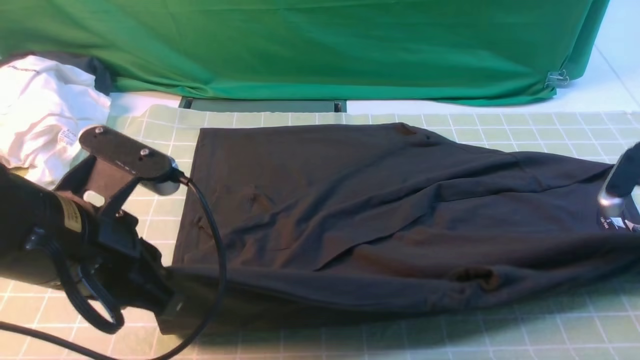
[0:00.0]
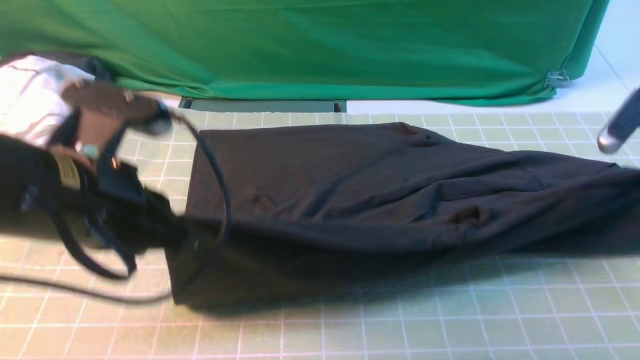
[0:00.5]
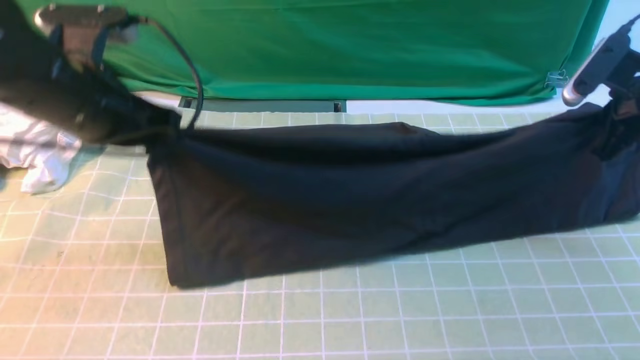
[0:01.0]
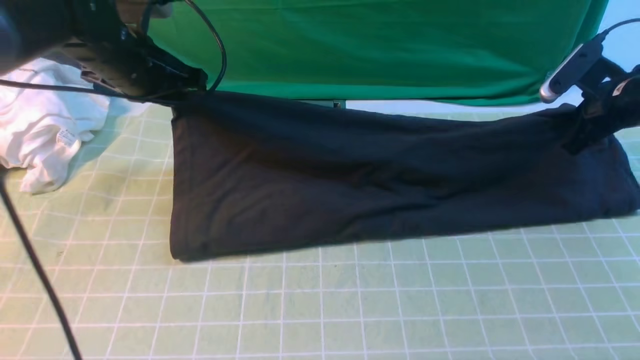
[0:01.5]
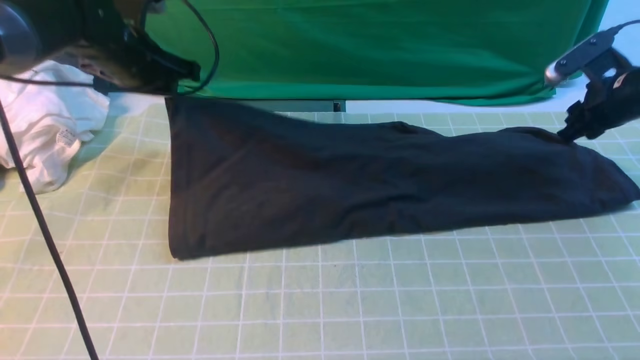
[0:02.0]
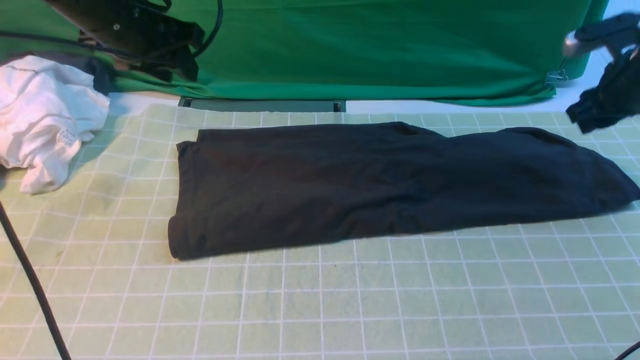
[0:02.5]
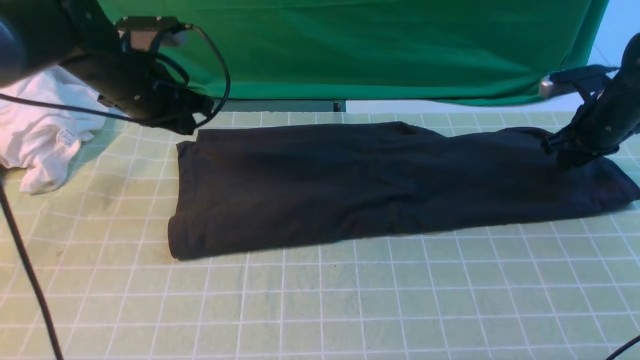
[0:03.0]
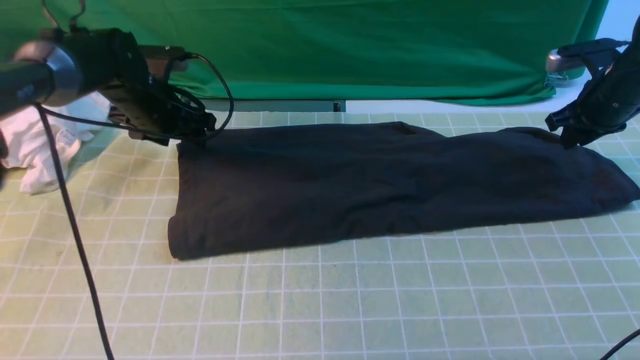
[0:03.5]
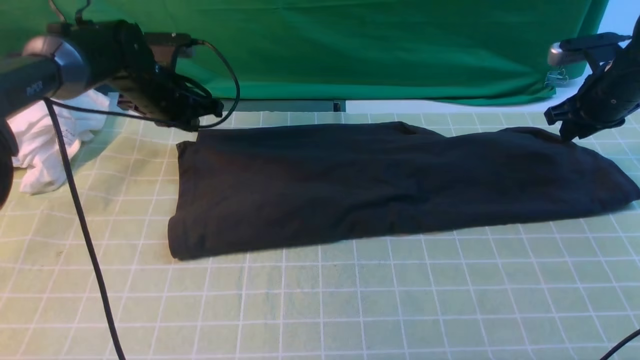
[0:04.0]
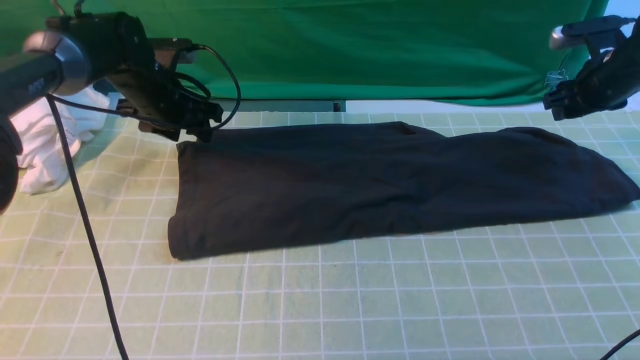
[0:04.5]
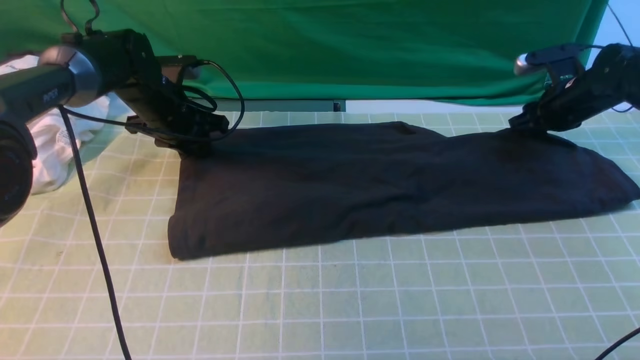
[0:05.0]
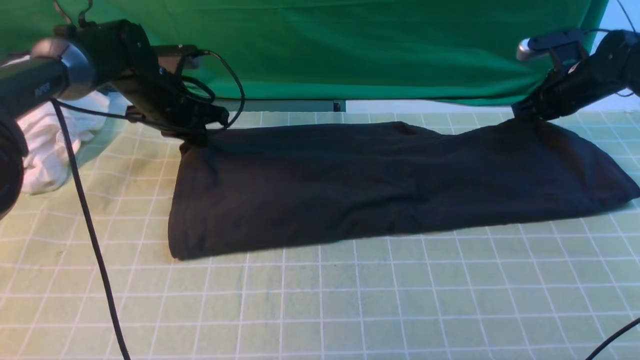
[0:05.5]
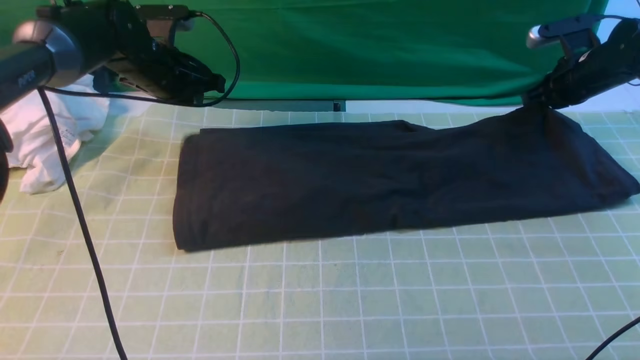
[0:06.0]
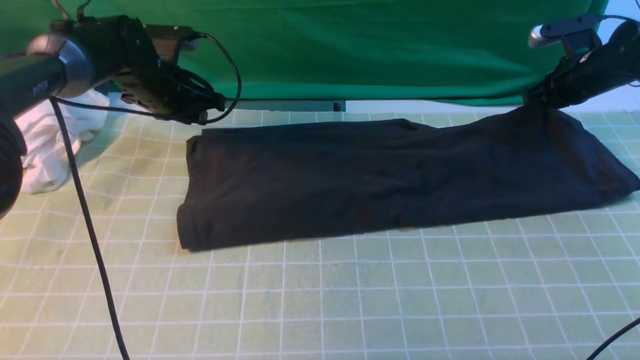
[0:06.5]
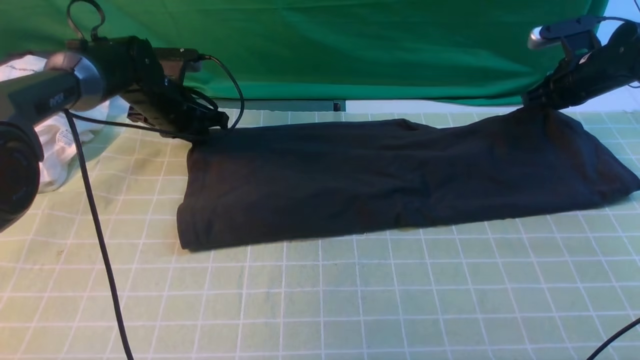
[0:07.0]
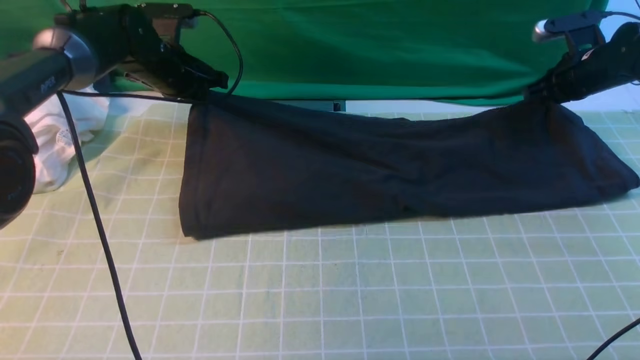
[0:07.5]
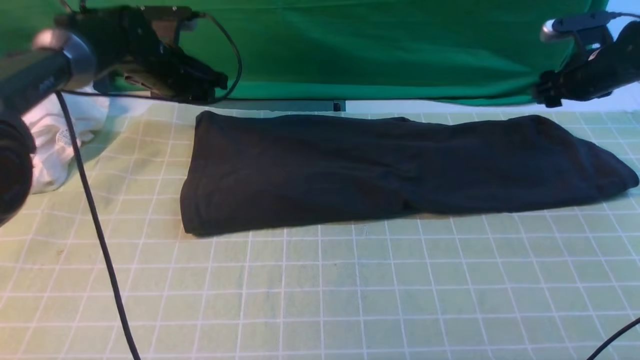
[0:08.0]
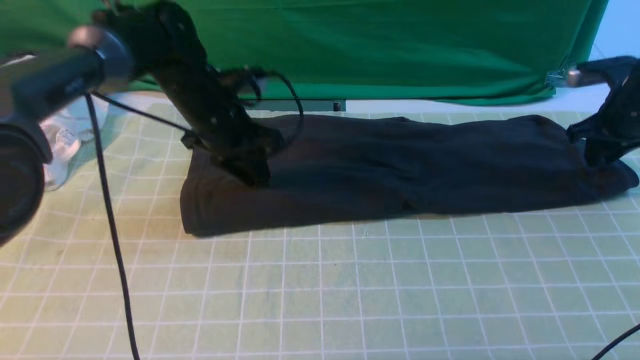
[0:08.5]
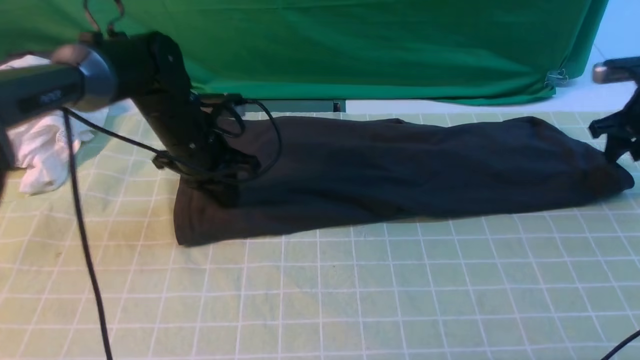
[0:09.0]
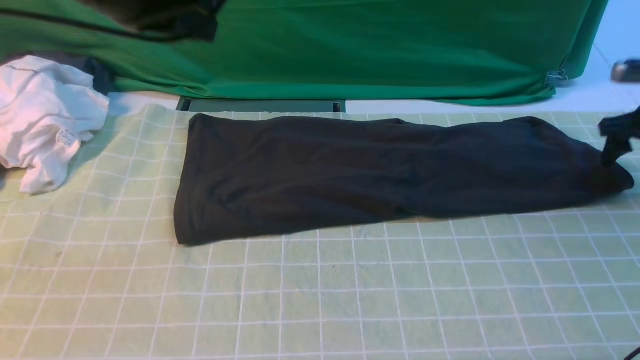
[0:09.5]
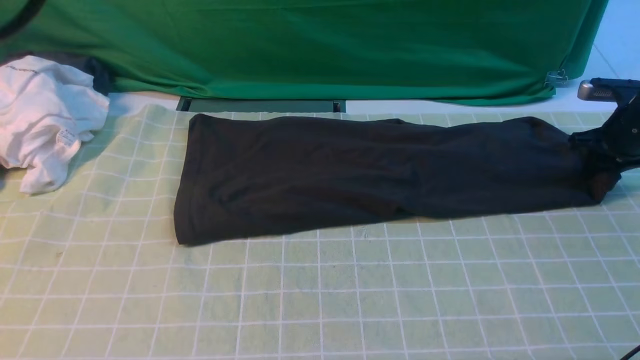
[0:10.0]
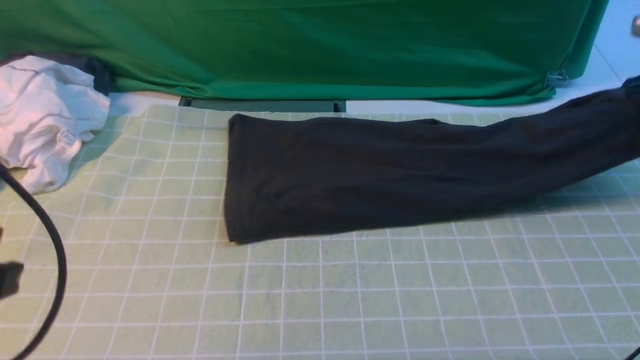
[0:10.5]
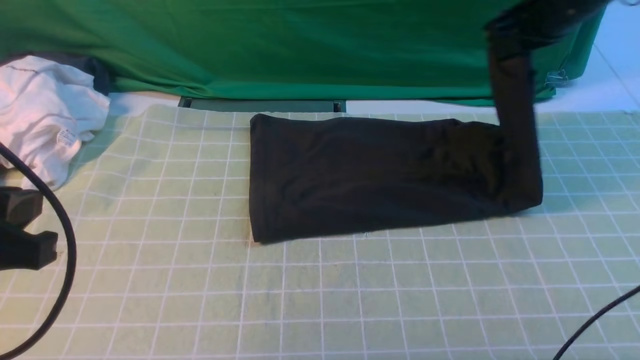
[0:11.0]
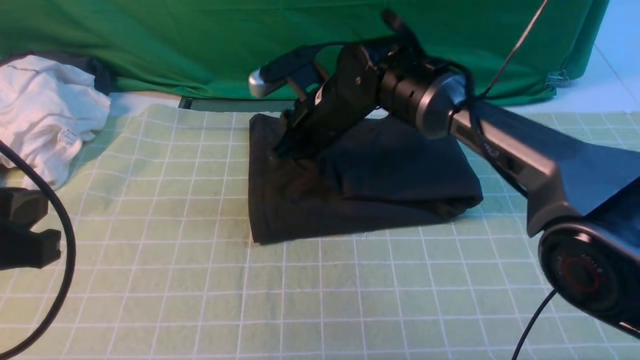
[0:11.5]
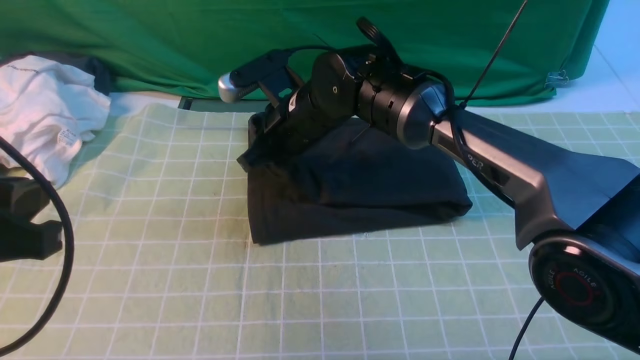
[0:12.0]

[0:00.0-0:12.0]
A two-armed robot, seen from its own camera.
Step, 0:00.0 to 0:07.5: use both arms to drag the lower edge of the fabric forward and fold it over the upper edge.
Step, 0:08.0 to 0:10.0: use the right arm to clamp the right edge of the fabric.
0:00.0 to 0:02.0: The right gripper is displaced forward by some 15 cm, and opens its fingers. The left gripper heads forward, covering about 25 cm, and opens.
0:02.0 to 0:04.0: The left gripper travels downward by roughly 10 cm, and closes its fingers.
0:04.0 to 0:06.0: The right gripper closes its fingers; the left gripper opens, then closes once more.
0:06.0 to 0:08.0: The right gripper opens up, while the left gripper opens.
0:08.0 to 0:10.0: The left gripper is displaced backward and upward by about 40 cm, and closes up. The right gripper goes about 5 cm downward and to the right.
0:10.0 to 0:12.0: The left gripper is displaced downward by roughly 15 cm, while the right gripper goes approximately 40 cm to the left, and closes and opens again.

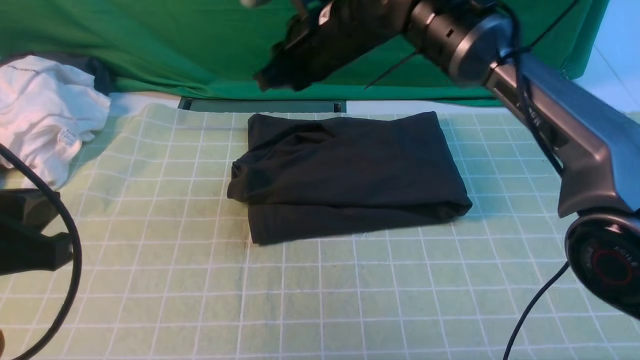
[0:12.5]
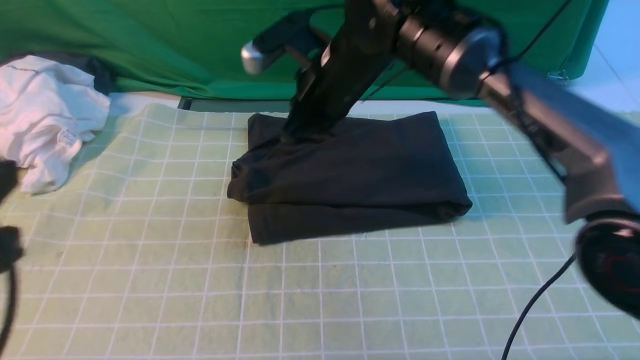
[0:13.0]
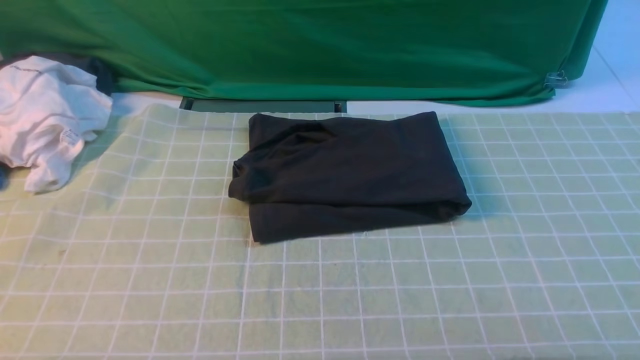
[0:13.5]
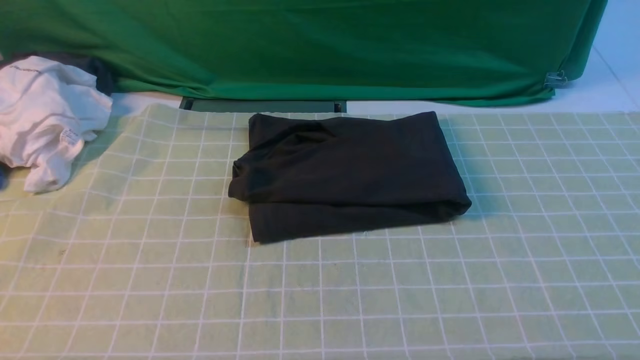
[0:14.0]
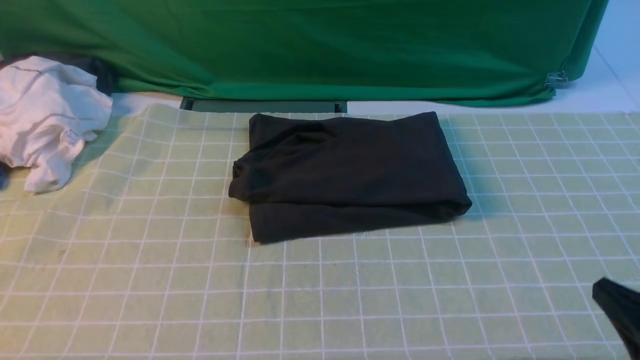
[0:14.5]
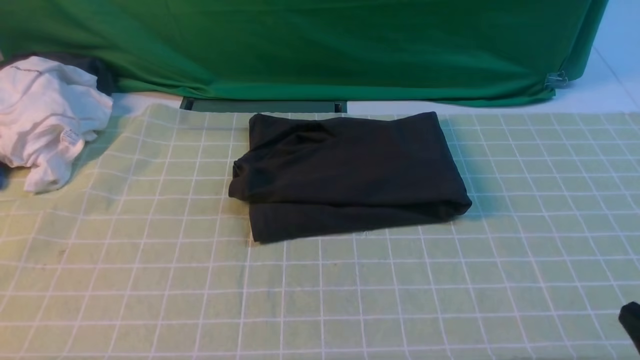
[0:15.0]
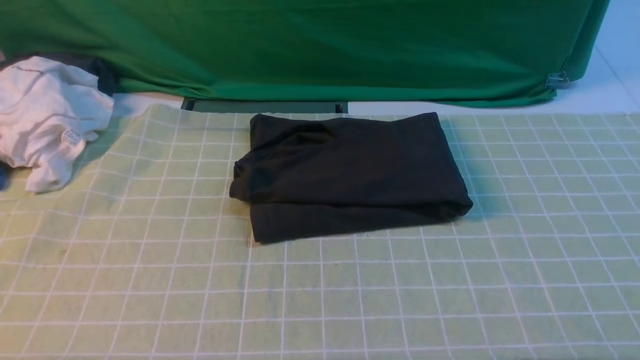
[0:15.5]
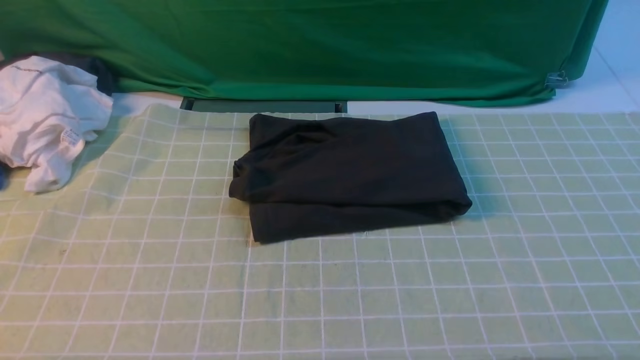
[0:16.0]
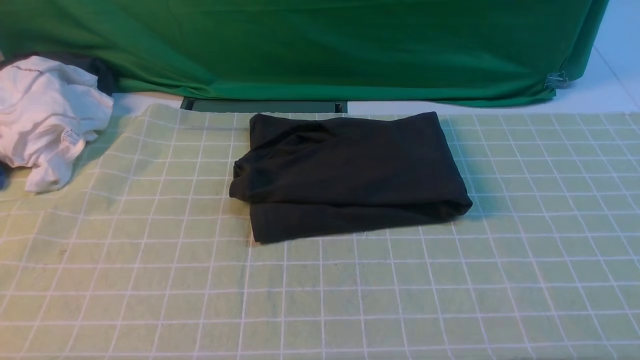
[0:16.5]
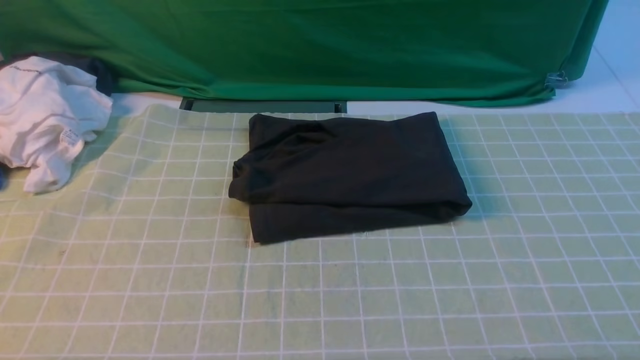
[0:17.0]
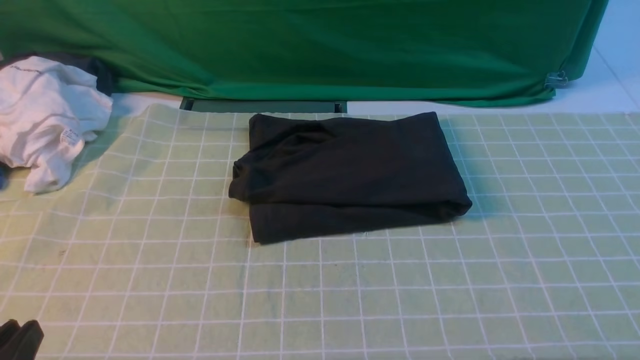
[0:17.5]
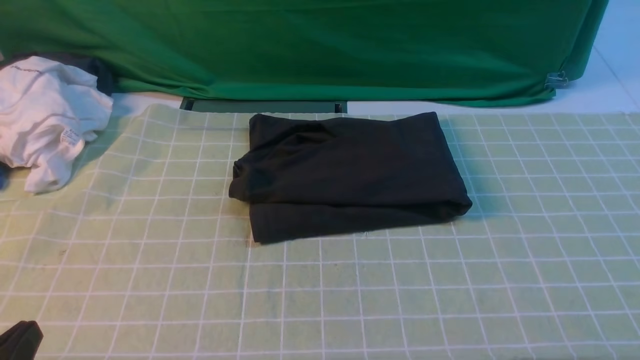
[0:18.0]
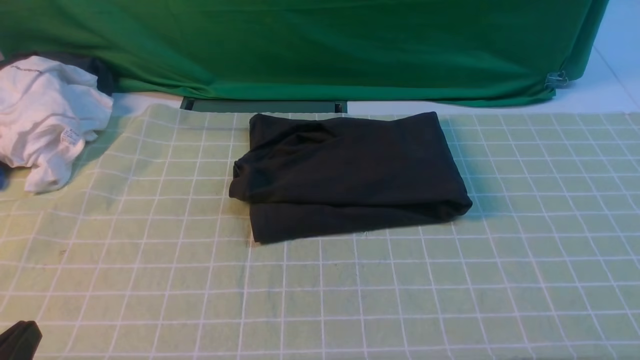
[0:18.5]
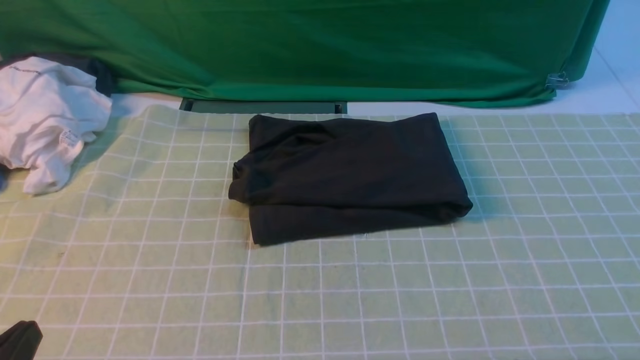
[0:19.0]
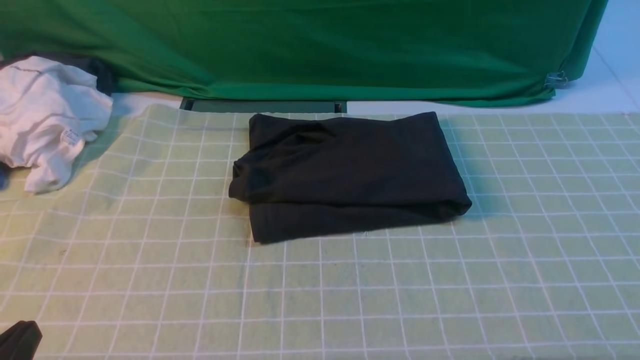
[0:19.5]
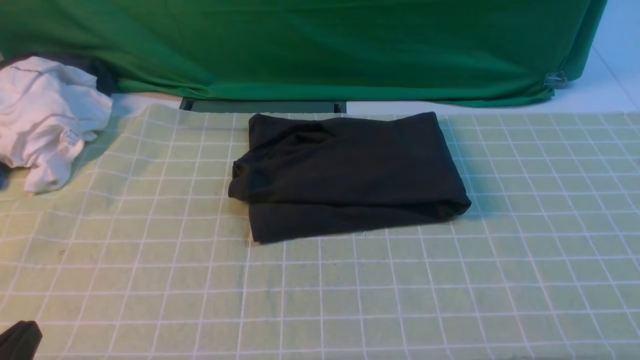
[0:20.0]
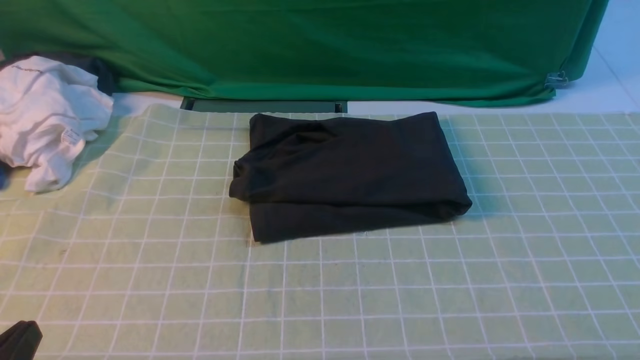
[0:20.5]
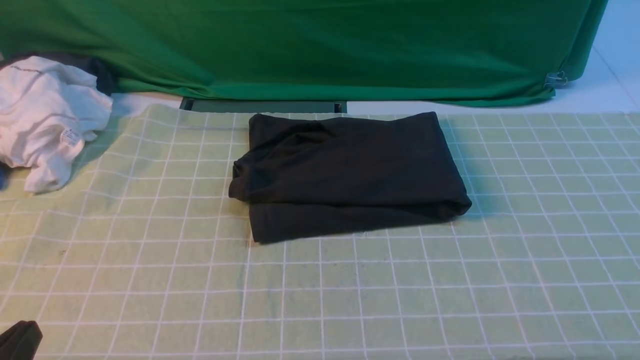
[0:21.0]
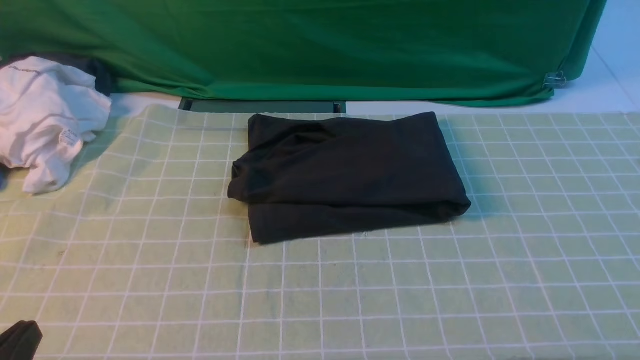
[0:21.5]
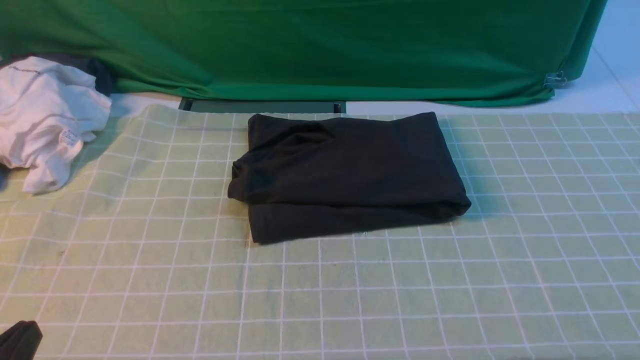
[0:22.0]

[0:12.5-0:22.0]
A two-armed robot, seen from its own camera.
0:12.5 to 0:14.5: The left gripper heads backward, covering roughly 10 cm. The right gripper is displaced backward and to the right by approximately 40 cm, and closes its fingers.
0:14.5 to 0:16.5: The right gripper changes place by roughly 5 cm.
0:20.0 to 0:22.0: Neither gripper changes place.
